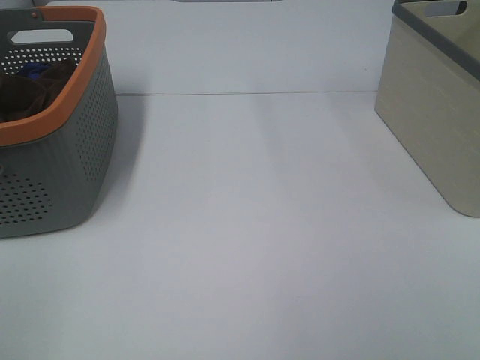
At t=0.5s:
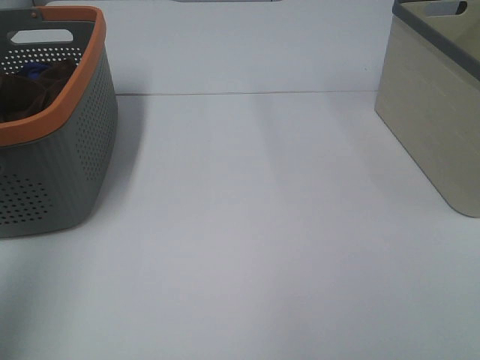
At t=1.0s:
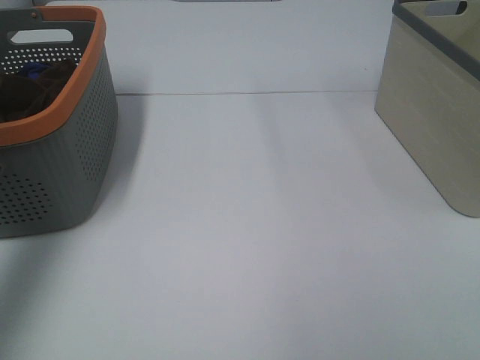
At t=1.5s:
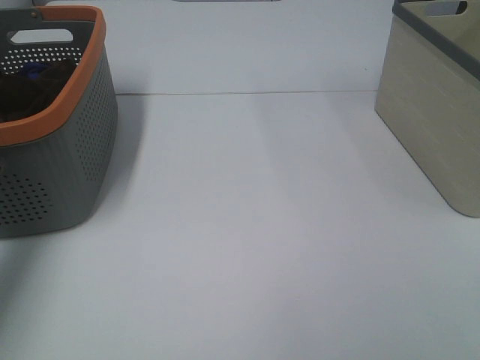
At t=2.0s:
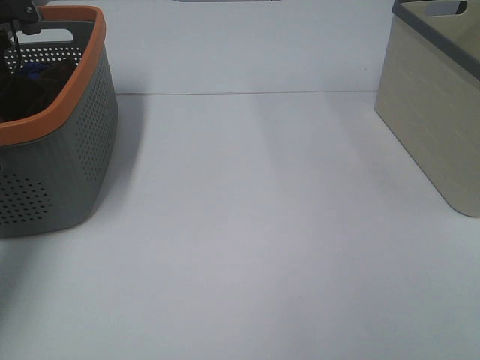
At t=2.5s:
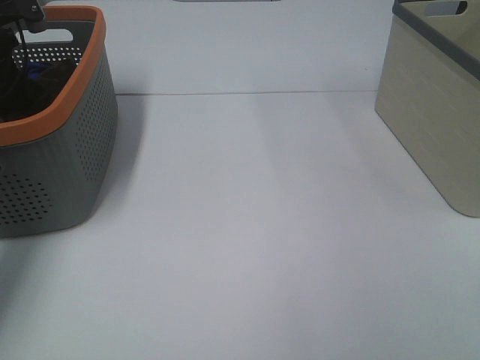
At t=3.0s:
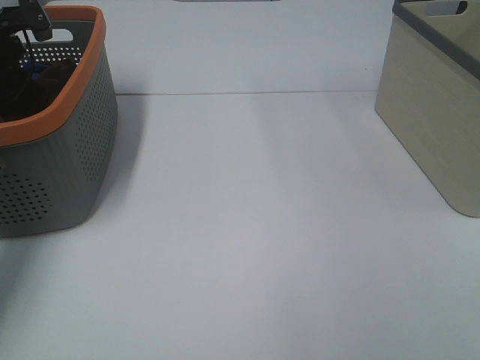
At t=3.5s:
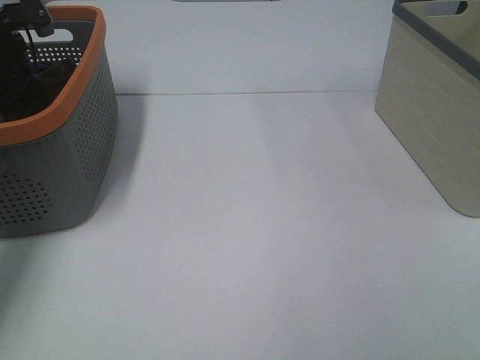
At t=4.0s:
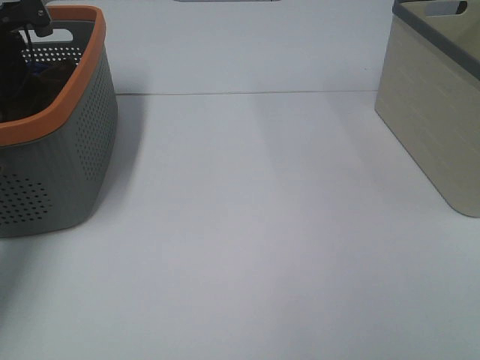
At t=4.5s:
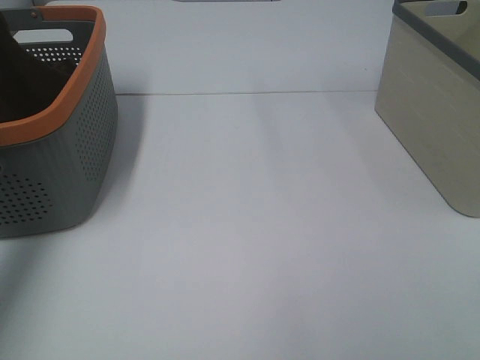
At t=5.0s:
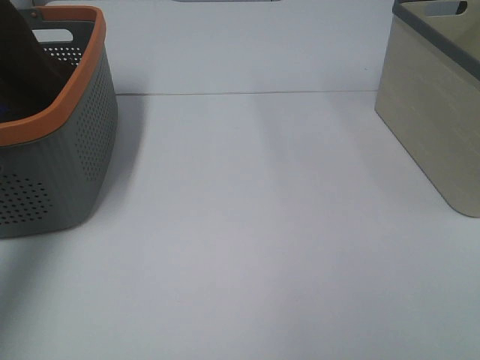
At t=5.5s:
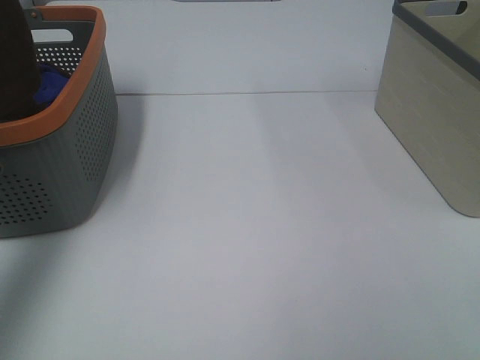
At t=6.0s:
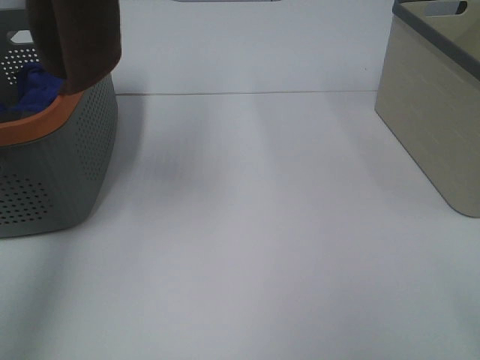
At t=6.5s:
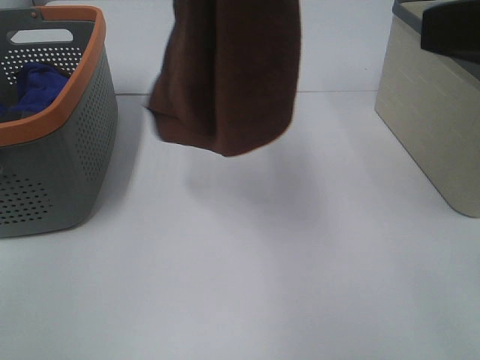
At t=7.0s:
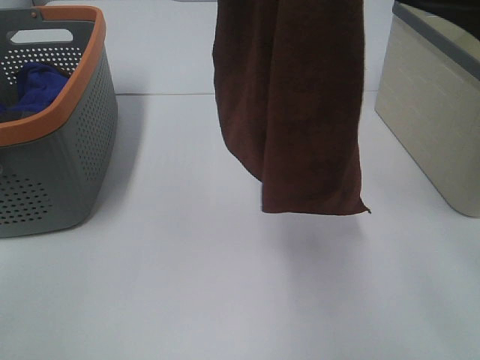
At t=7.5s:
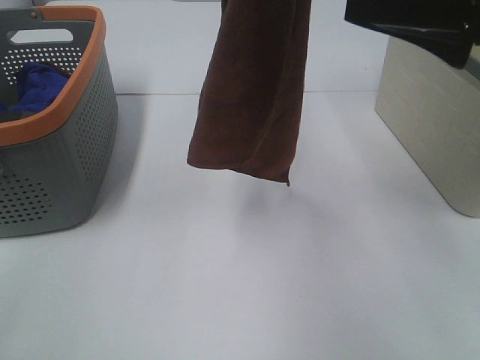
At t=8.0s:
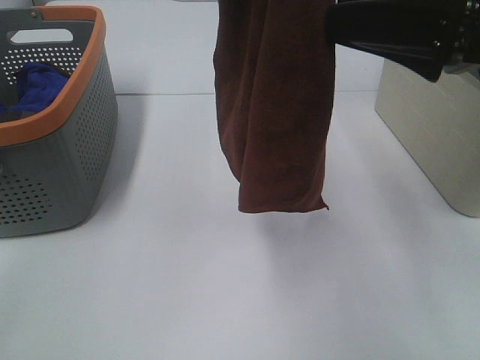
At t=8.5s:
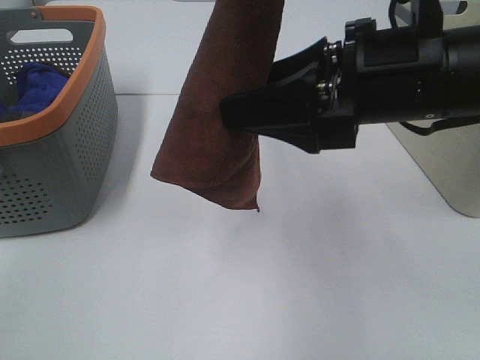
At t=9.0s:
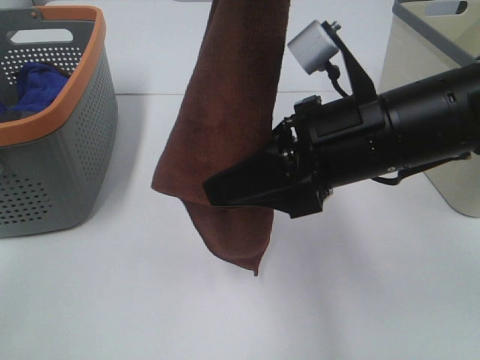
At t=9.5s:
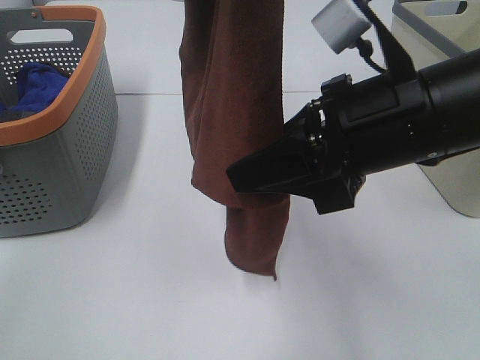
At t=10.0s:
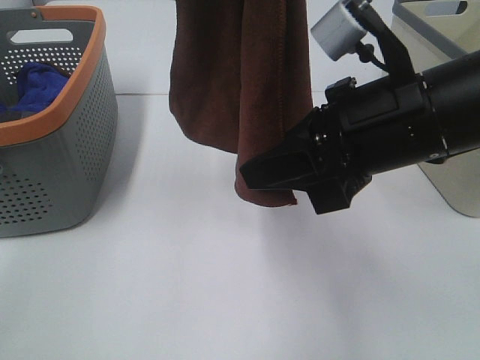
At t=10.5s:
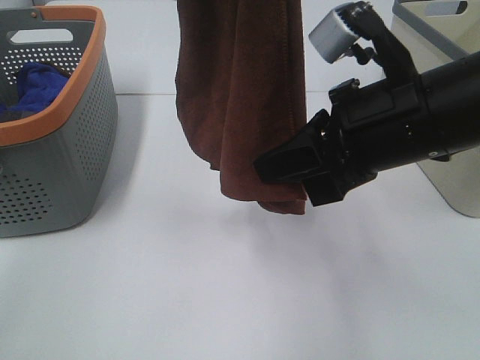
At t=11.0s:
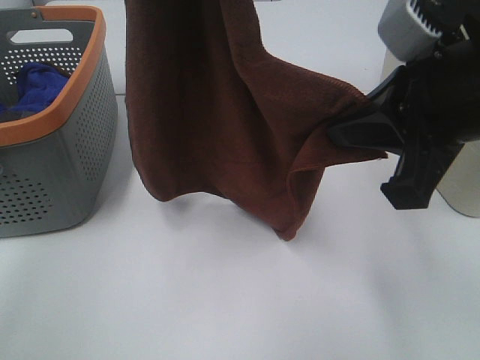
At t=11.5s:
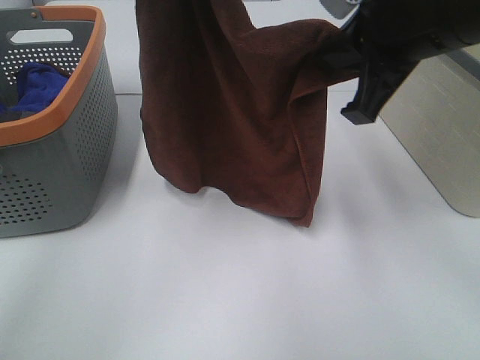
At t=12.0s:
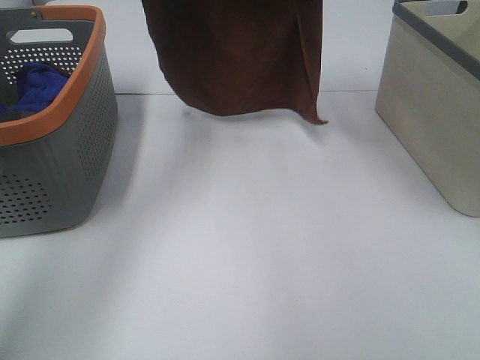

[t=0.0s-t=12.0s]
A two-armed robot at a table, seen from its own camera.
Task of the whole recording: Remove the towel and place it.
Step, t=5.0s to t=8.5s: Right hand: grab a corner of the brown towel and straighten it.
Step, t=9.0s to t=10.5s: Left hand: spread the brown towel flat on the table.
Step, t=9.0s to t=10.5s: Right hand: spread the brown towel flat on the table.
t=0.0s to t=2.0s: The left gripper travels forward by roughly 50 cm.
t=4.0s to t=6.0s: The left gripper goes about 40 cm upward and backward; the right gripper shifts roughly 10 cm forward and upward.
t=6.0s to t=8.0s: The right gripper is displaced forward and downward by roughly 20 cm. The left gripper heads to the right, covering approximately 15 cm.
t=8.0s to t=10.0s: The right gripper goes approximately 10 cm to the left, and closes up.
t=10.0s to t=12.0s: The right gripper travels forward and upward by approximately 25 cm. Meanwhile the left gripper travels forward and downward by about 25 cm.

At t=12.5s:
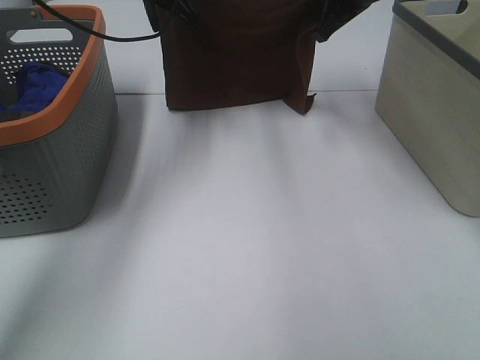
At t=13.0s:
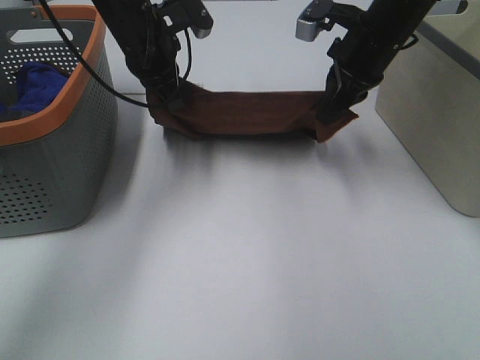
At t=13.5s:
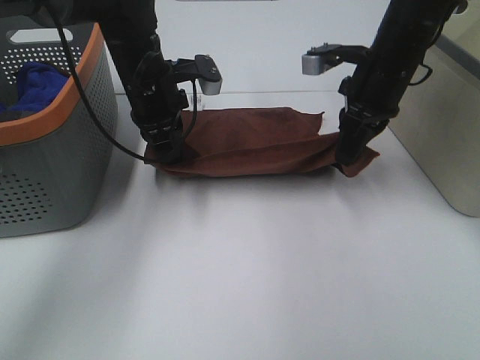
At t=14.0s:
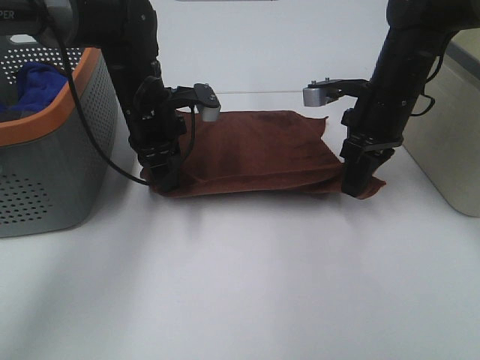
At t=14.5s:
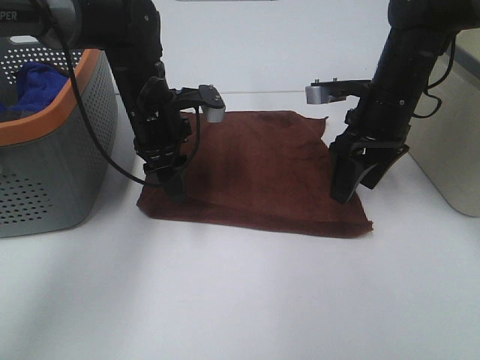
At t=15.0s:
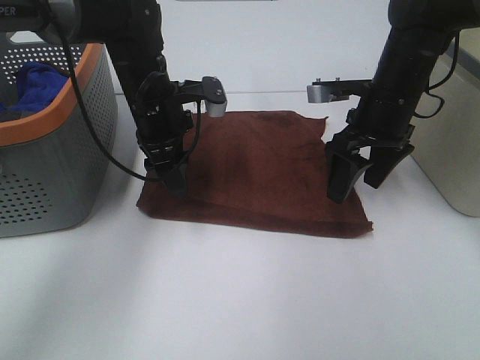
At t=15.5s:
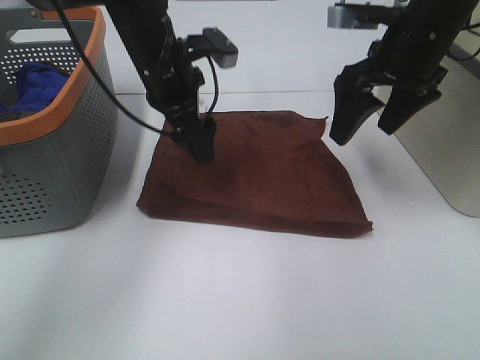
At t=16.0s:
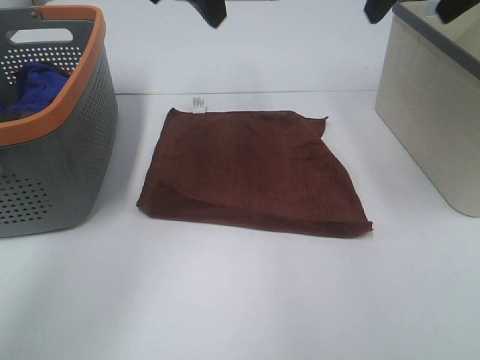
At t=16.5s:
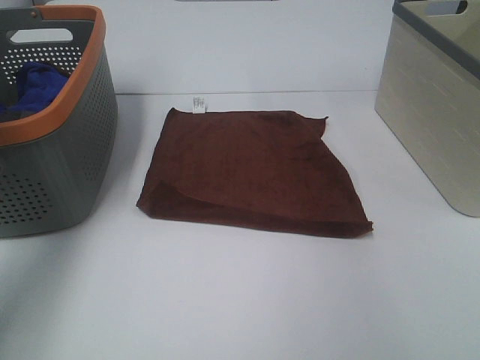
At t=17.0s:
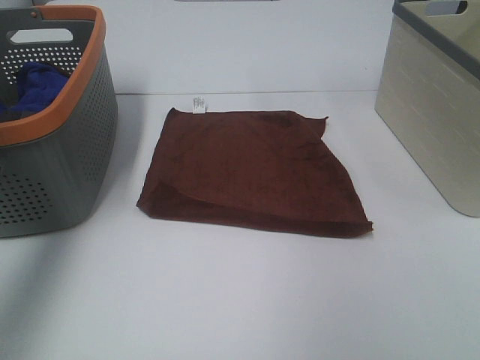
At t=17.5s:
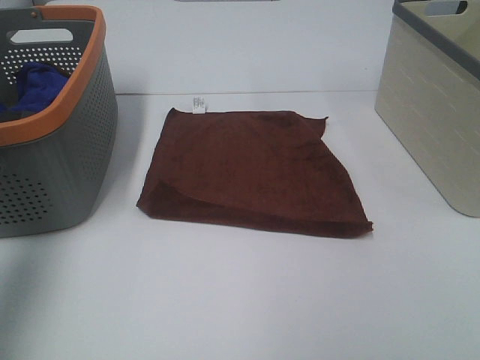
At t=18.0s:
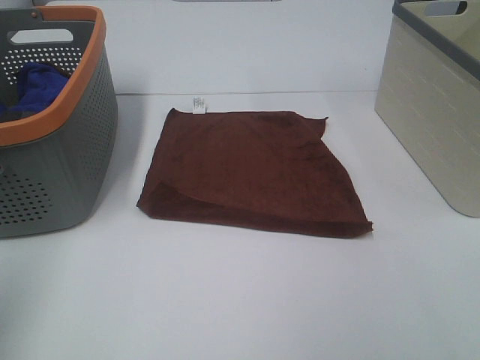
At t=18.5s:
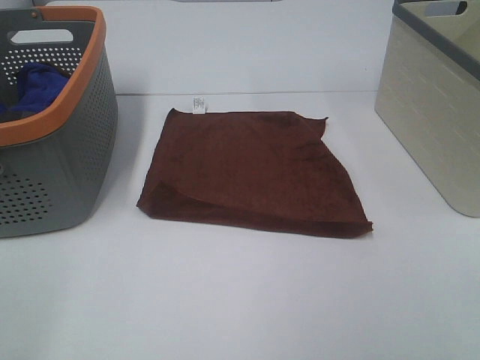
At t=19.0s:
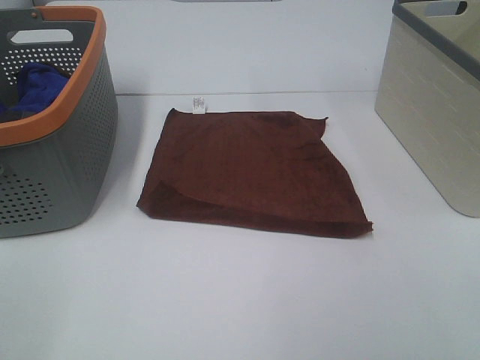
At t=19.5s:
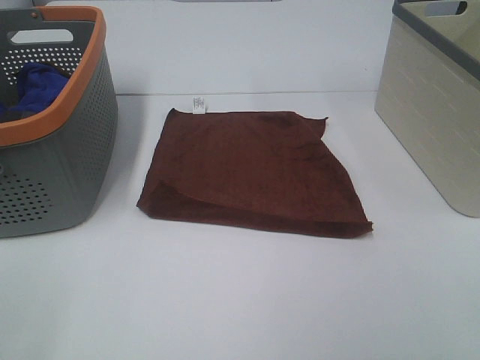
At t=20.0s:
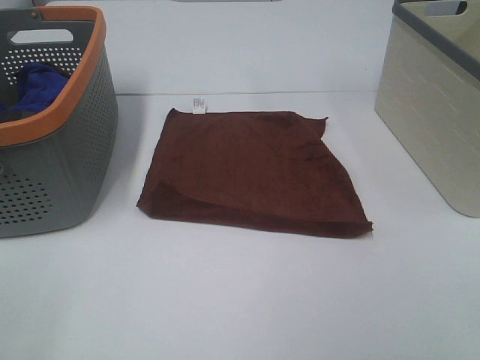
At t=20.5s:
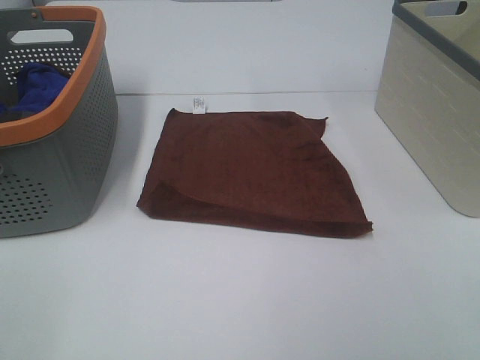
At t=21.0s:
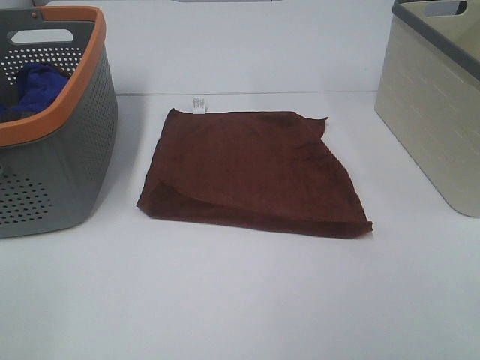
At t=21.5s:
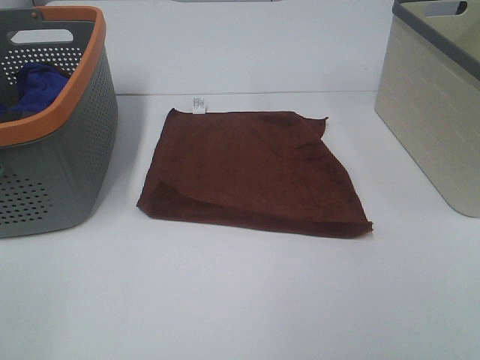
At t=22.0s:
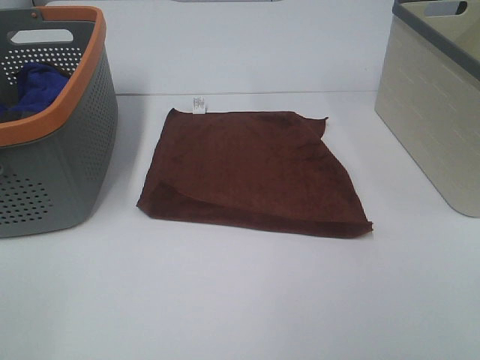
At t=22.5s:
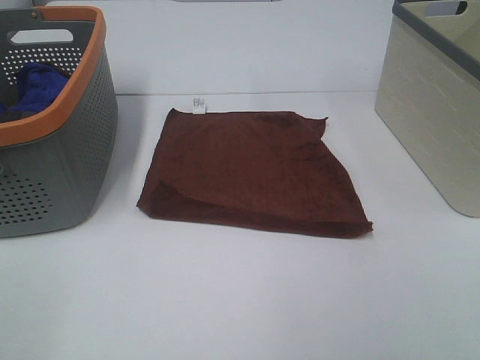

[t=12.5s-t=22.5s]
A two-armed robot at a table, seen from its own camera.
Task of the whole recording: Remove the towel and place it.
t=12.5s to t=14.5s: Both grippers move downward and backward, about 15 cm. The right gripper opens up, while the left gripper opens.
t=14.5s to t=16.5s: The left gripper travels upward and to the left by approximately 30 cm, and opens its fingers, while the right gripper heads upward and to the right, covering roughly 30 cm.
t=16.5s to t=18.5s: The left gripper moves backward, roughly 40 cm.
